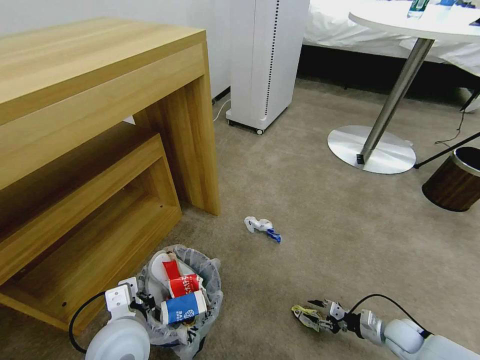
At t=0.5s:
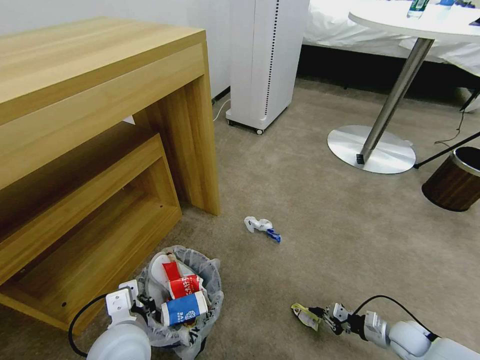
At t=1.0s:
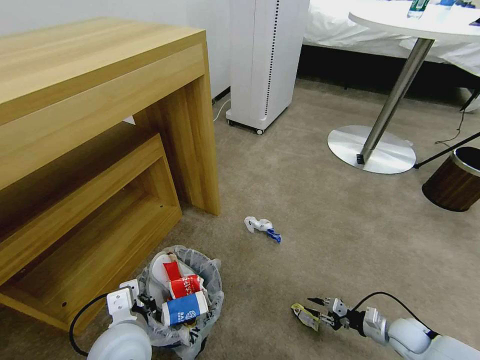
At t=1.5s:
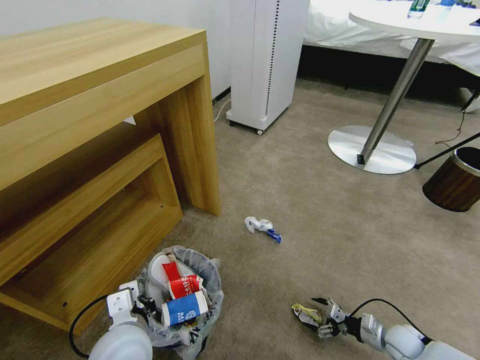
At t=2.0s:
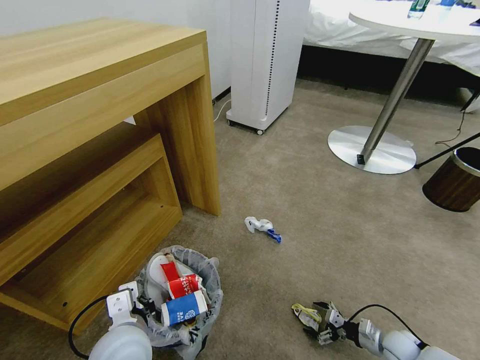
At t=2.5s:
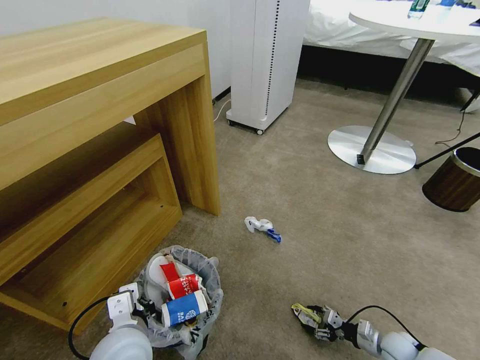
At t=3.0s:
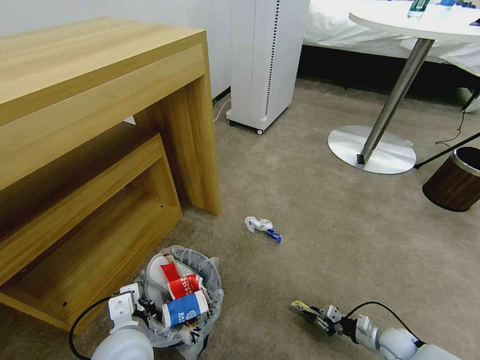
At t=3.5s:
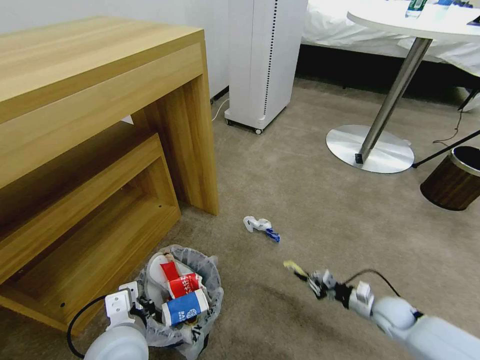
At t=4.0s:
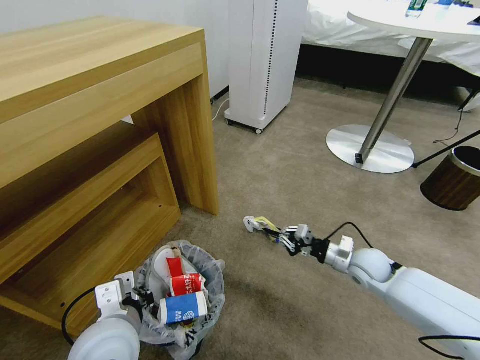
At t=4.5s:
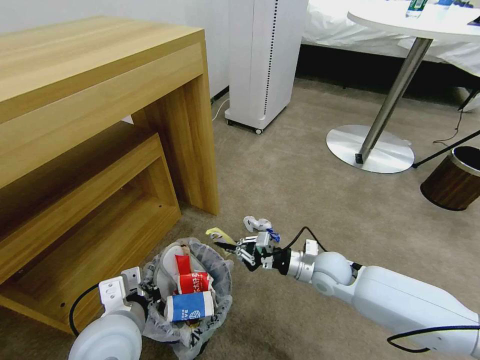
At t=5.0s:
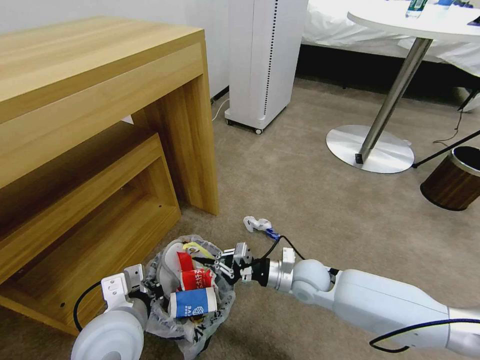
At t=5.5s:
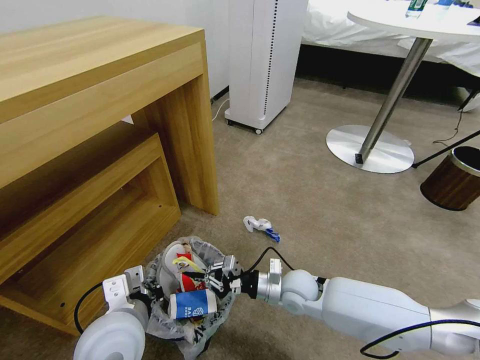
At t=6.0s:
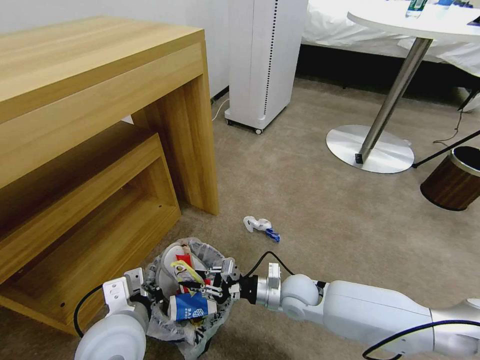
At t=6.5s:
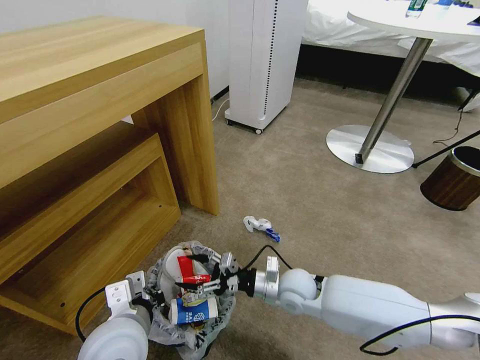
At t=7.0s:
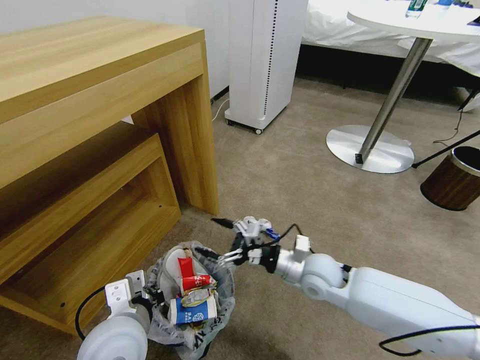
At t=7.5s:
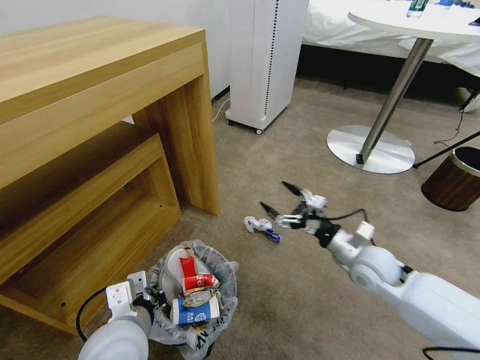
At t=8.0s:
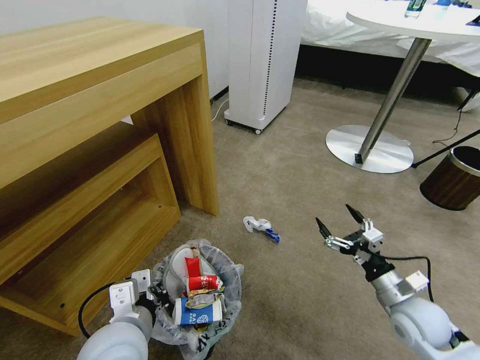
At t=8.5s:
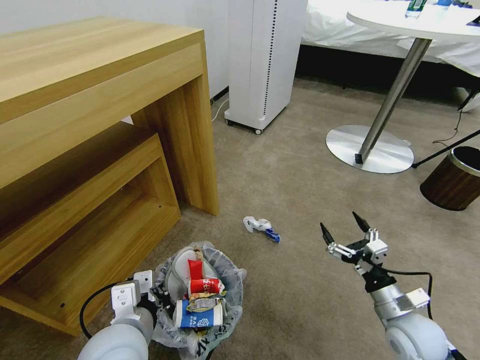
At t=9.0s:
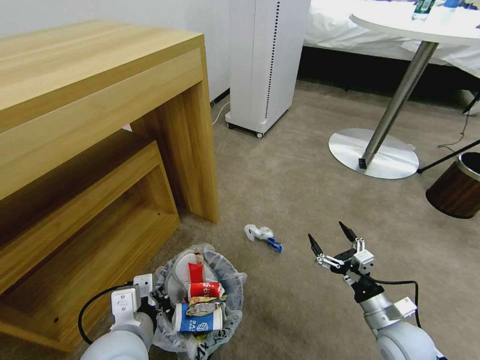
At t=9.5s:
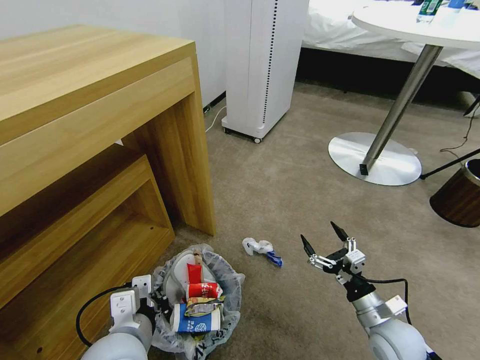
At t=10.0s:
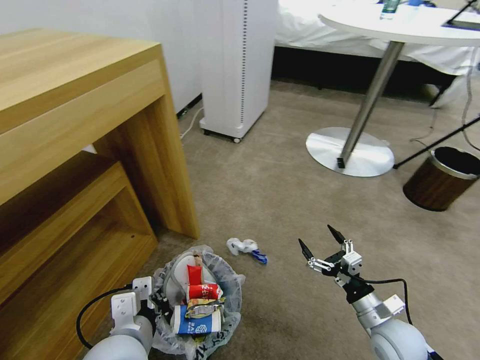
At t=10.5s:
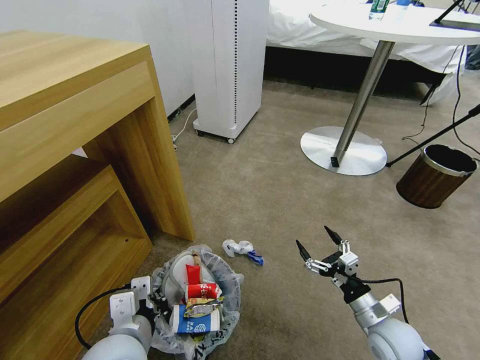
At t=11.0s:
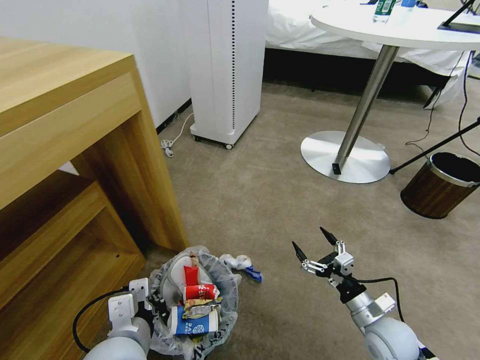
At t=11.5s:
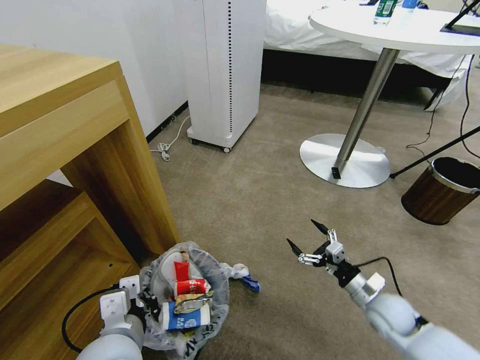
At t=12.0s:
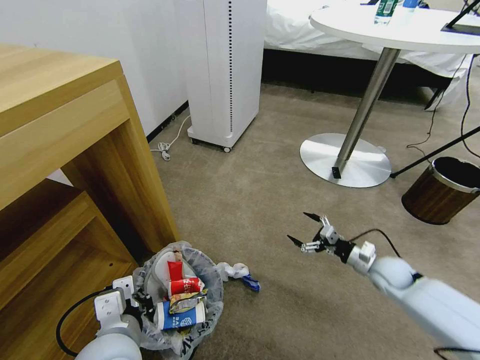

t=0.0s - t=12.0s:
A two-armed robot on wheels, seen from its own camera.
Task of the whole recording: Pick up the trash bin and place the garbage on the floor into it.
t=0.0s - t=2.0s: The right gripper opens up.
t=2.0s - t=4.0s: The right gripper moves upward, forward and to the left, approximately 30 cm, and closes up.
t=4.0s - t=6.0s: The right gripper travels to the left by approximately 20 cm.
t=6.0s - t=8.0s: The right gripper moves to the right, roughly 25 cm, and opens up.
t=8.0s - t=10.0s: The right gripper moves some 5 cm.
t=10.0s - t=12.0s: The right gripper shifts approximately 15 cm forward and to the right.

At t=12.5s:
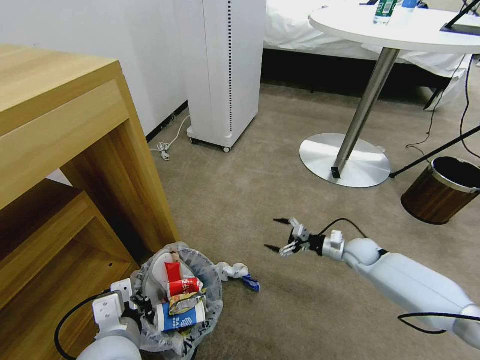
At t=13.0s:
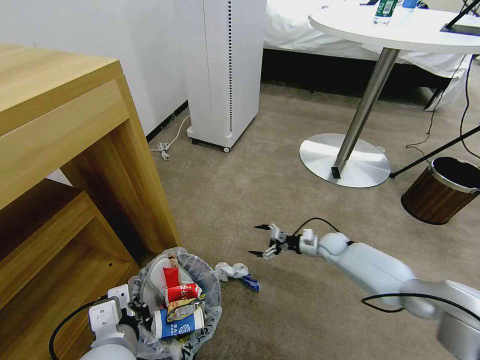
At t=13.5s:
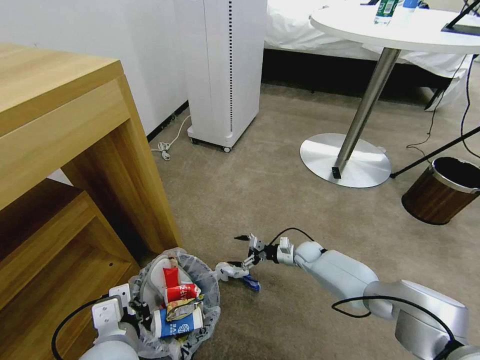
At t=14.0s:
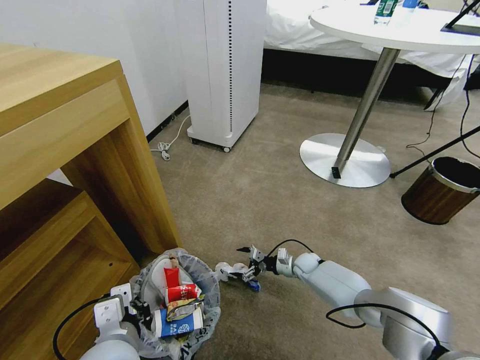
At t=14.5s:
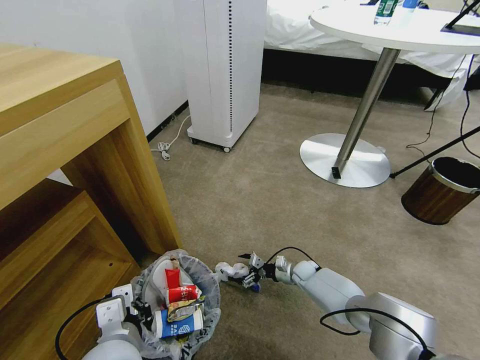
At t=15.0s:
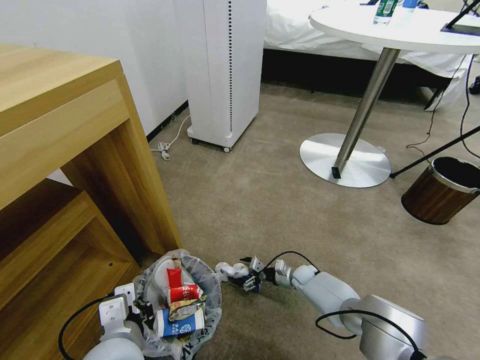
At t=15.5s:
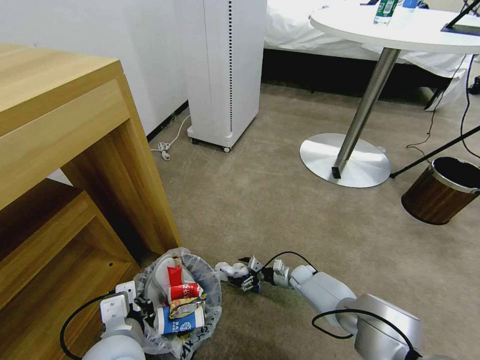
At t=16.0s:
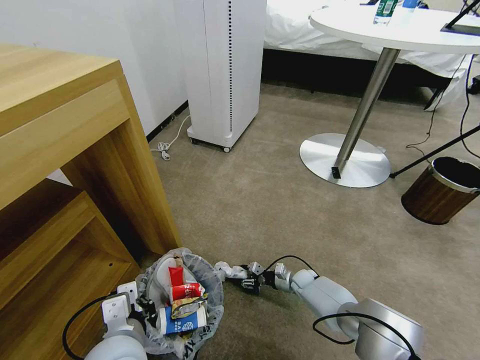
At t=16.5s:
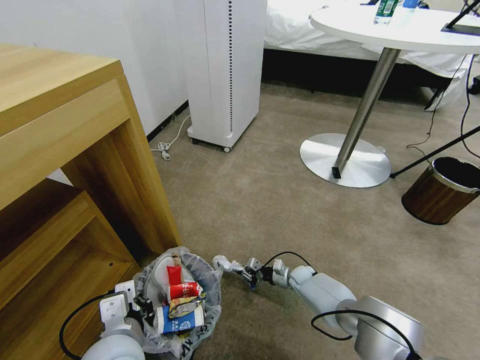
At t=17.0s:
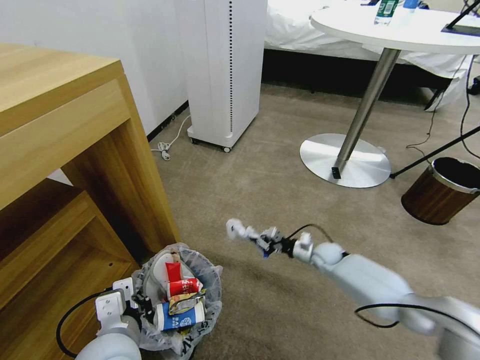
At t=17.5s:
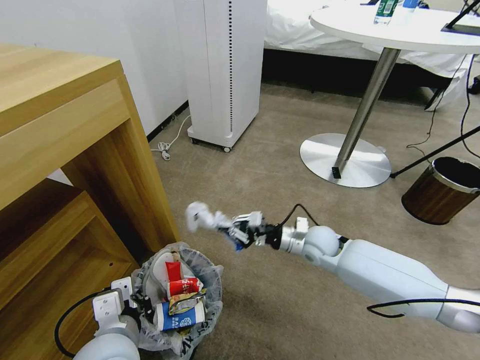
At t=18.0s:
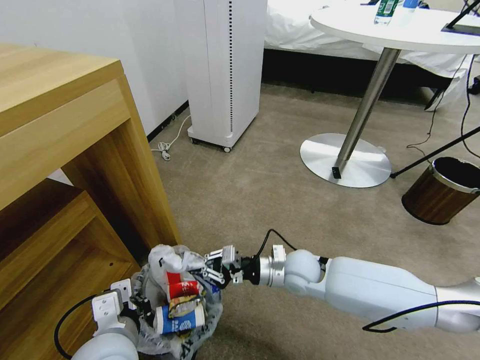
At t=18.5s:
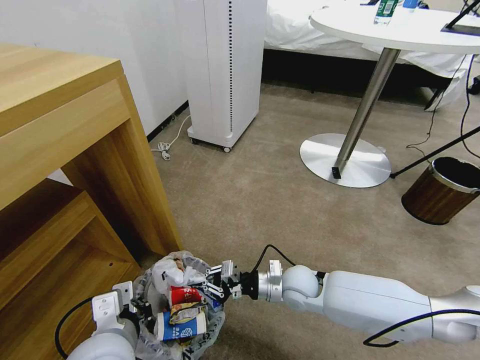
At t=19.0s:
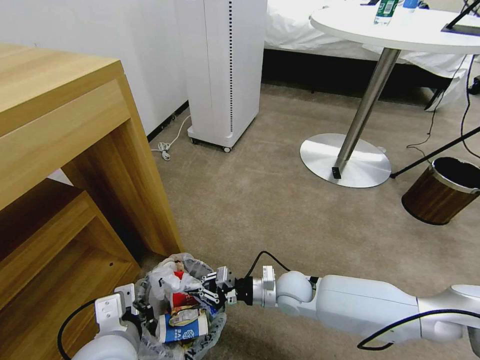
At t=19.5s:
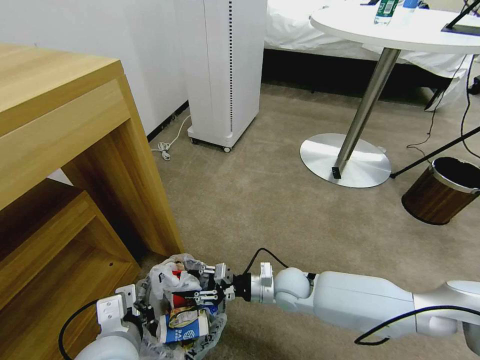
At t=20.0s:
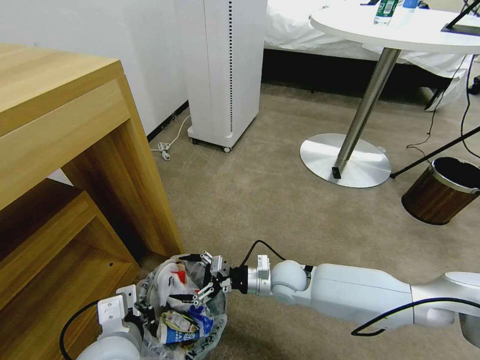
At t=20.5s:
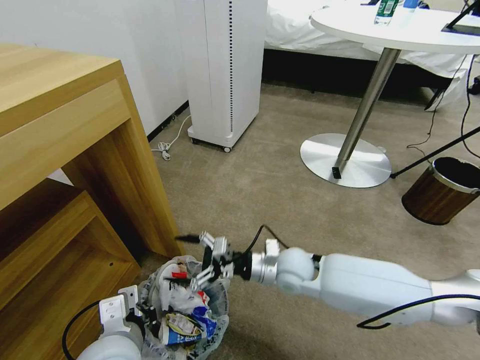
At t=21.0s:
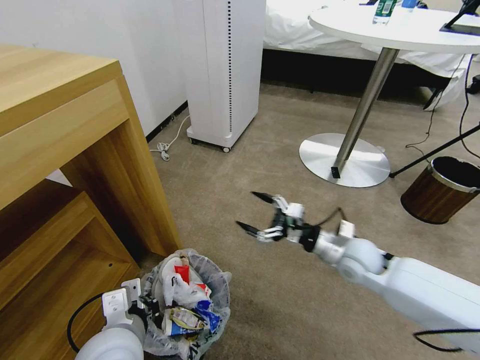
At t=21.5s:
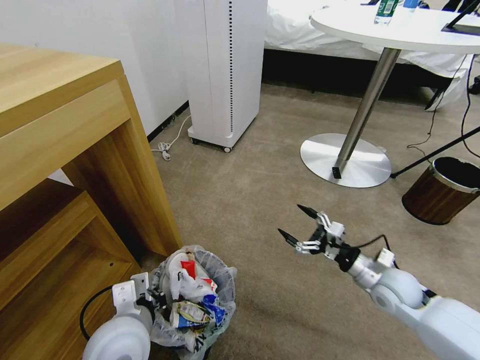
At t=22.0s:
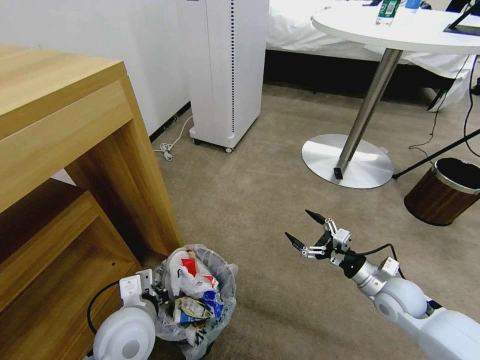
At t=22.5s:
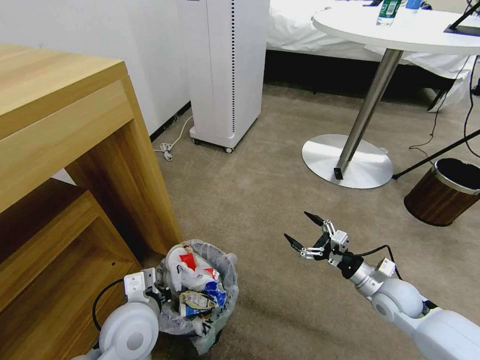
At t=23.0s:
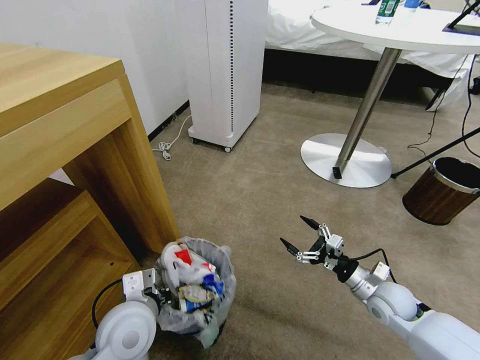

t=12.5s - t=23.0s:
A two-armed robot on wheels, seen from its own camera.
Task of the whole recording: Pick up the trash bin and place the garbage on the floor into it.
t=12.5s - t=14.5s: The right gripper travels downward and to the left by approximately 20 cm.
t=14.5s - t=16.5s: The right gripper closes.
t=16.5s - t=19.0s: The right gripper goes about 25 cm upward, backward and to the left.
t=19.0s - t=21.0s: The right gripper goes some 20 cm to the right and upward, and opens its fingers.
t=21.0s - t=23.0s: The right gripper moves downward, to the right and backward, roughly 10 cm, while the left gripper shifts some 5 cm forward.

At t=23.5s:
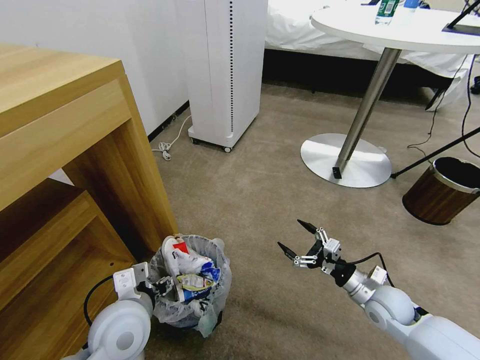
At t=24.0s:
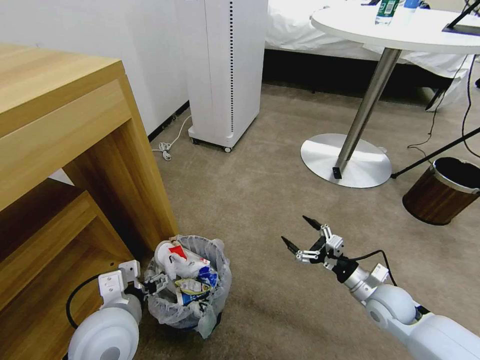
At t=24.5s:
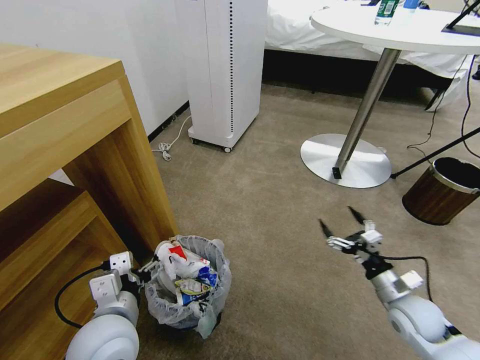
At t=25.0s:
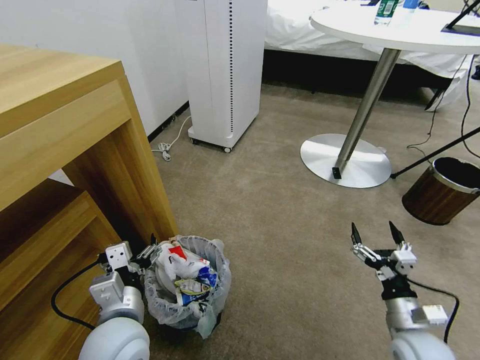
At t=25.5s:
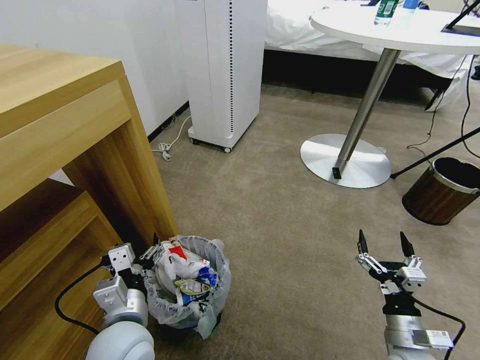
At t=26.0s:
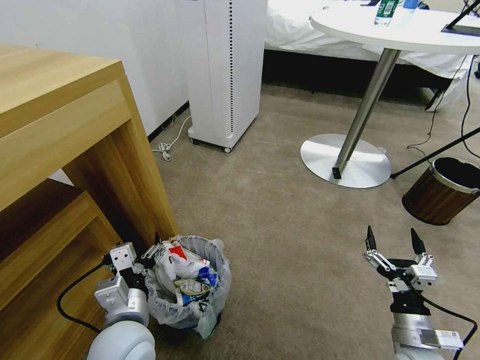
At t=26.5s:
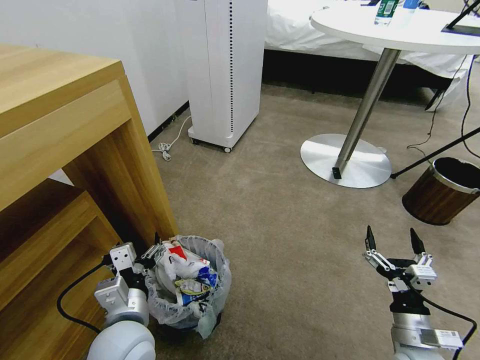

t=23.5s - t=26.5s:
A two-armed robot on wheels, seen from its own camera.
Task of the whole recording: Pick up the trash bin and place the garbage on the floor into it.
t=23.5s - t=25.0s: The right gripper shifts about 10 cm backward.
t=25.0s - t=26.5s: The grippers make only small movements.
